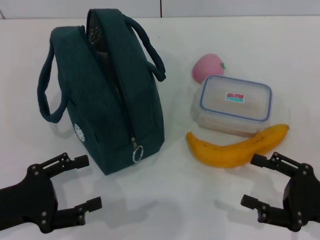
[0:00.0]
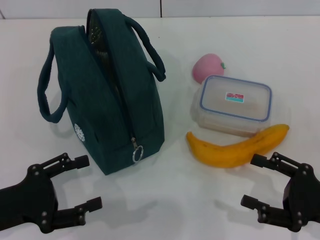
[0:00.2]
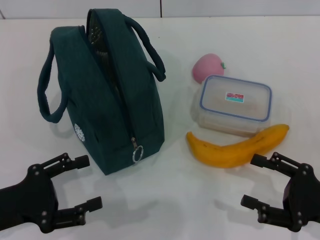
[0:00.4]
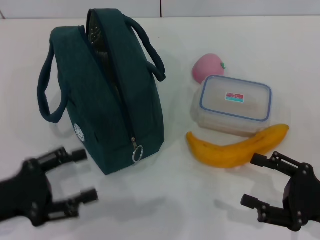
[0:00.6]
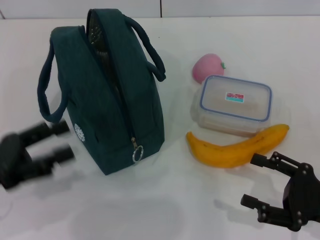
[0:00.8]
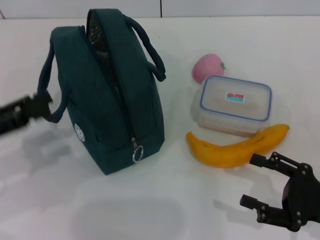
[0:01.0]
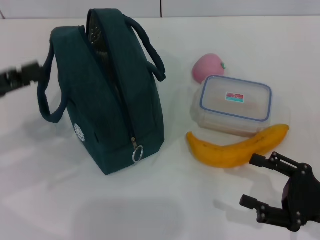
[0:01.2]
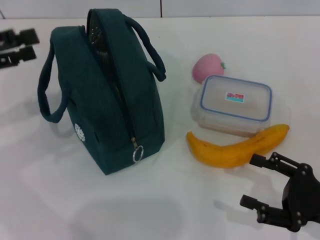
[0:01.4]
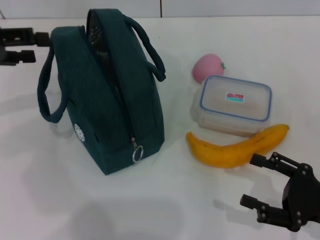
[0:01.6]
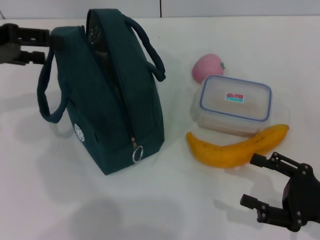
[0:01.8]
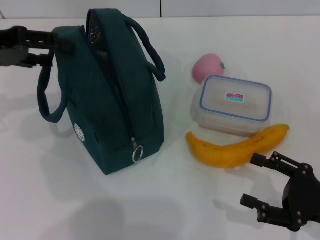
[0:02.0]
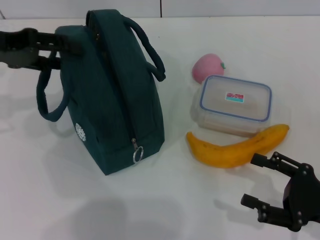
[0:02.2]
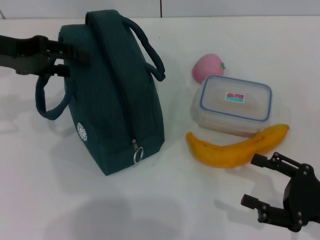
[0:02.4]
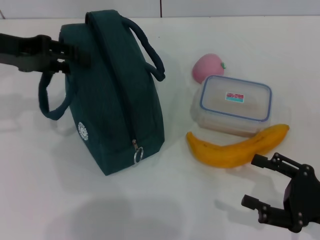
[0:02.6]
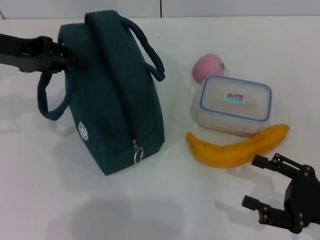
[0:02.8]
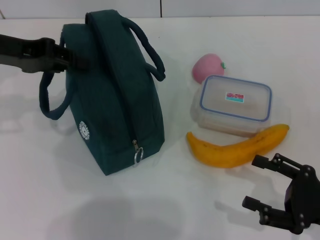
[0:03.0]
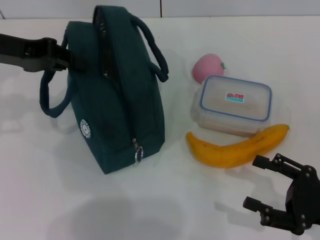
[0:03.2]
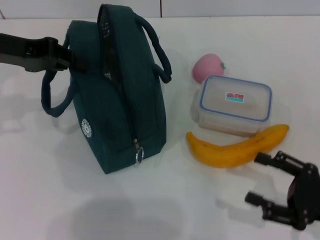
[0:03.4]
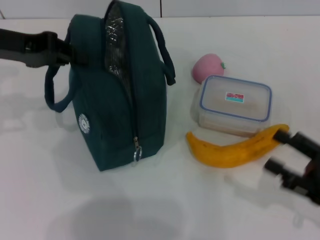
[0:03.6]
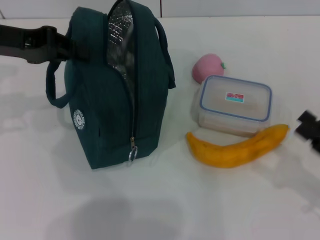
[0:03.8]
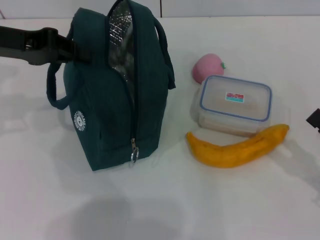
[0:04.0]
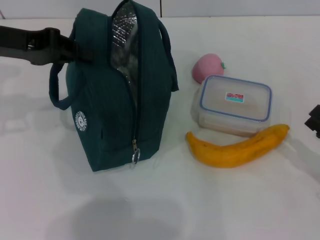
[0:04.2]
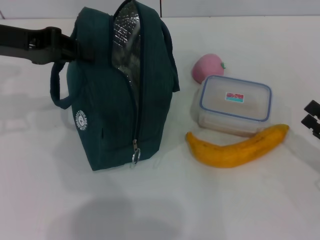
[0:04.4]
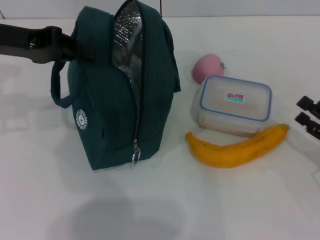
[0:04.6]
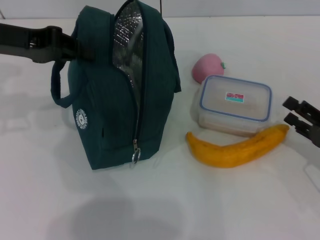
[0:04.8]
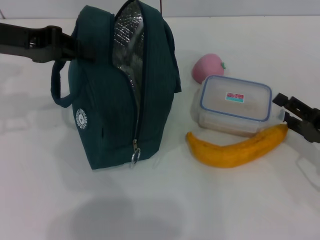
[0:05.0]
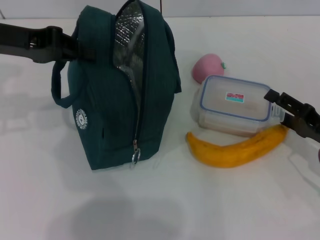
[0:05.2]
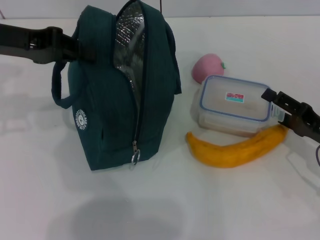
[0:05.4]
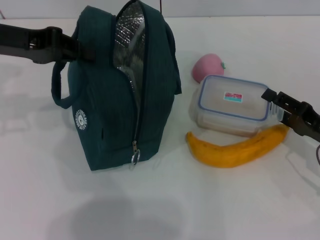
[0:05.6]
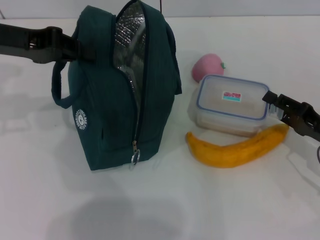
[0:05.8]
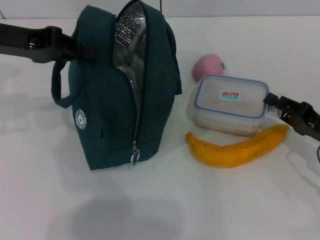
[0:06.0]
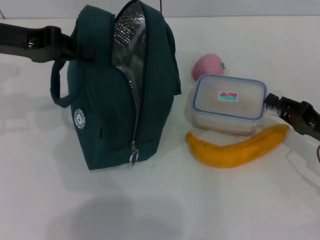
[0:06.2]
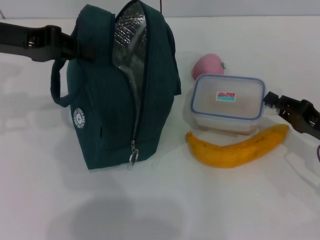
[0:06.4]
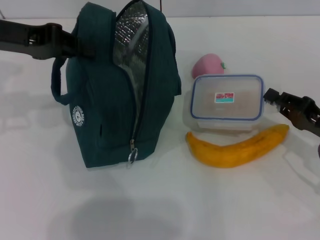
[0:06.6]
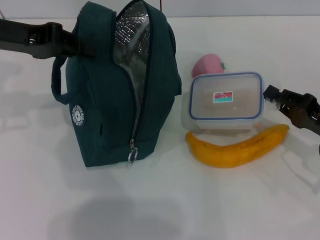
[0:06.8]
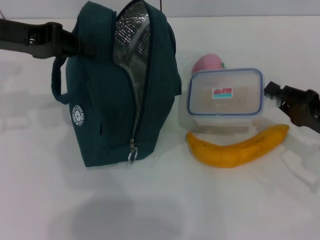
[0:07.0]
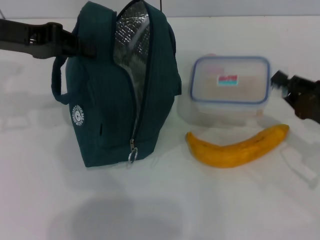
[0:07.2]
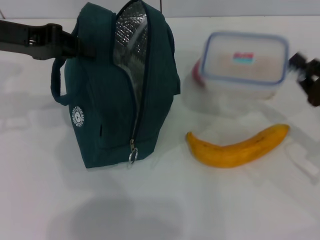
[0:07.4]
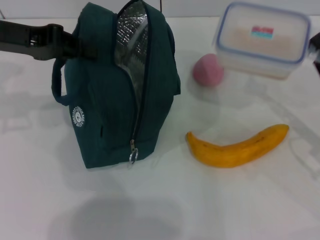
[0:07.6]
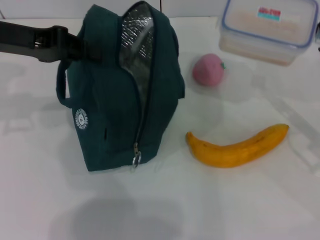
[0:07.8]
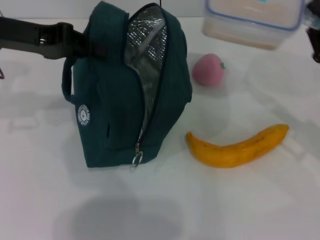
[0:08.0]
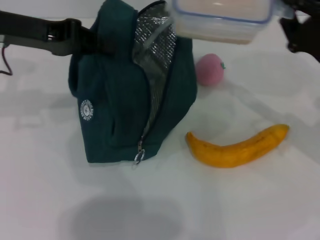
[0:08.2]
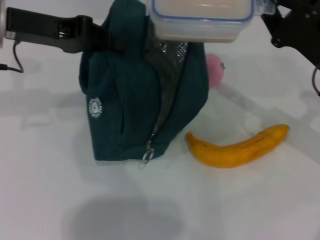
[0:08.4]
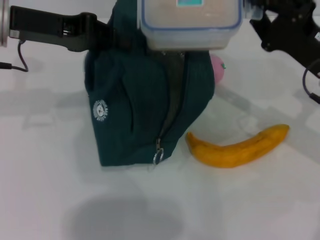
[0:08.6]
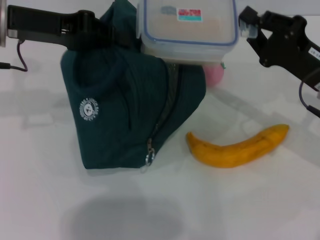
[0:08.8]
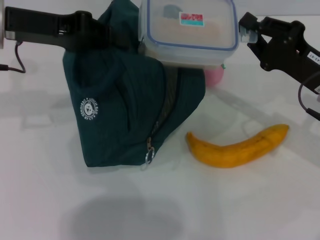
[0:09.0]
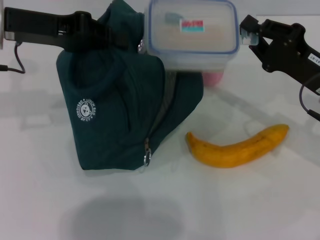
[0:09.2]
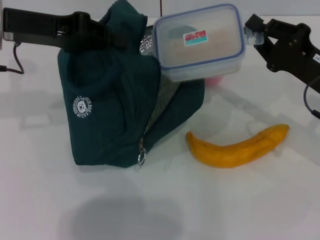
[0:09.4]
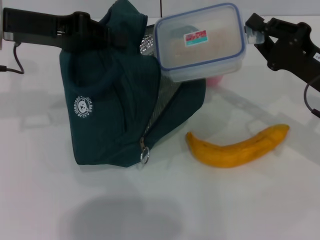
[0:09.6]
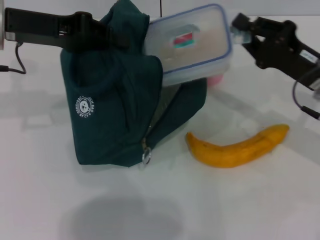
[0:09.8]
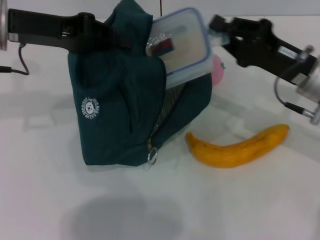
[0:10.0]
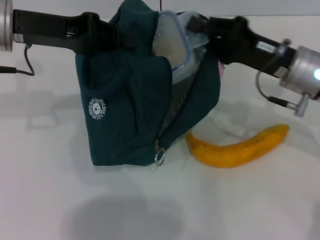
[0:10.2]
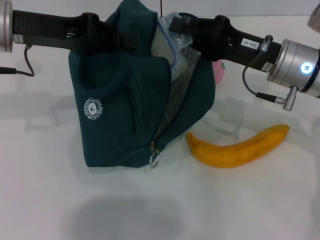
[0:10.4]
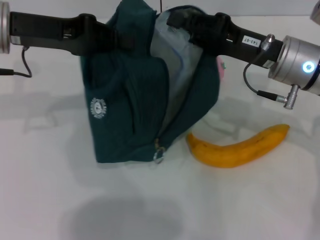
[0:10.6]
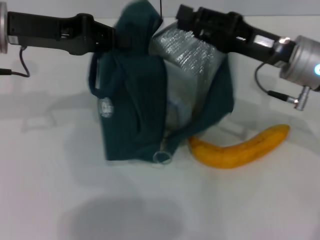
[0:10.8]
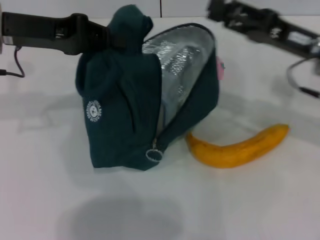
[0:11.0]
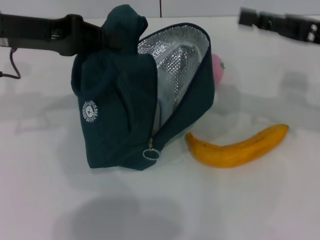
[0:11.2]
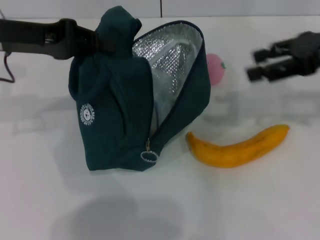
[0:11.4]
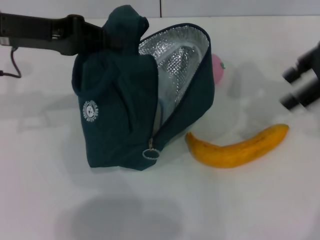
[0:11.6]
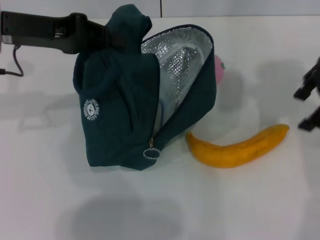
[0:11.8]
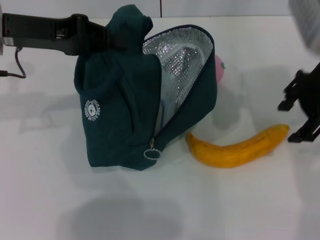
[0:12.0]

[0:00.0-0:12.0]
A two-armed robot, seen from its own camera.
Step, 0:00.0 to 0:03.4: Hold the lunch bag with your left hand.
Step, 0:03.6 to 0:06.4: Pick up the lunch box with your right hand.
Step, 0:06.6 to 0:10.8: Place the lunch box into the lunch bag with your right hand.
0:00.0 to 0:01.6: The left gripper is displaced forward and upward by about 20 cm.
0:01.6 to 0:03.0: The left gripper moves to the right, approximately 5 cm, and closes up.
0:03.0 to 0:04.4: The right gripper shifts by roughly 5 cm; the left gripper closes up.
0:04.4 to 0:06.0: The right gripper travels forward by about 5 cm.
0:06.0 to 0:07.6: The right gripper closes.
0:07.6 to 0:09.0: The right gripper heads to the left, covering some 5 cm.
0:09.0 to 0:10.4: The right gripper is displaced to the left by about 5 cm.
0:10.4 to 0:12.0: The right gripper goes about 10 cm upward, and opens up.

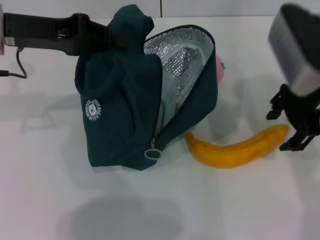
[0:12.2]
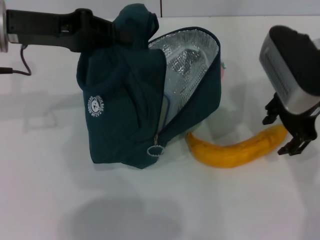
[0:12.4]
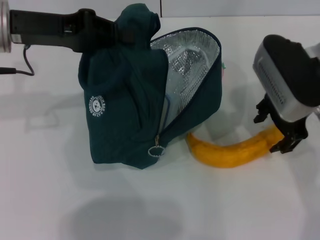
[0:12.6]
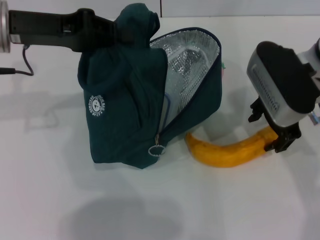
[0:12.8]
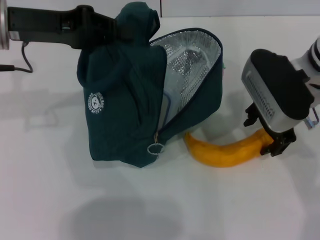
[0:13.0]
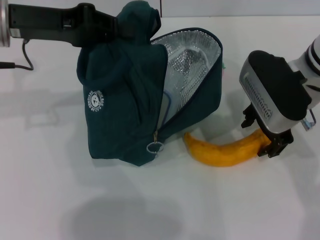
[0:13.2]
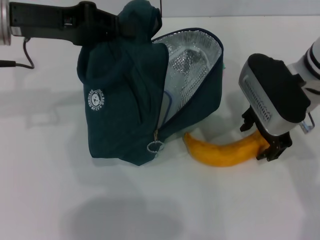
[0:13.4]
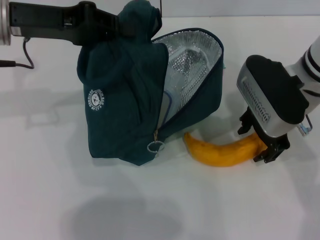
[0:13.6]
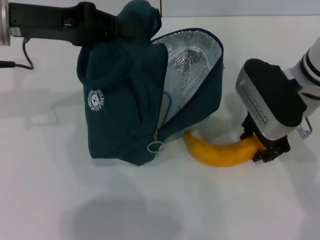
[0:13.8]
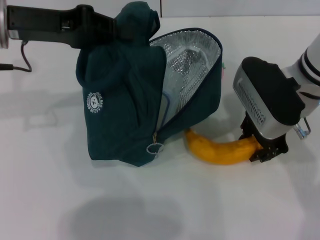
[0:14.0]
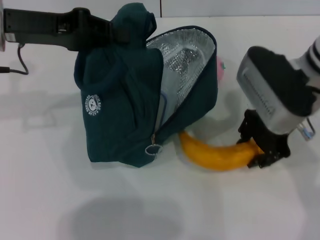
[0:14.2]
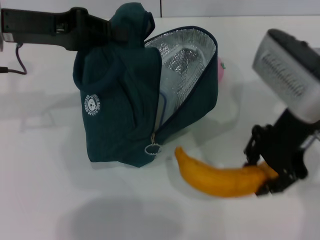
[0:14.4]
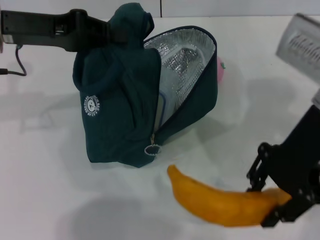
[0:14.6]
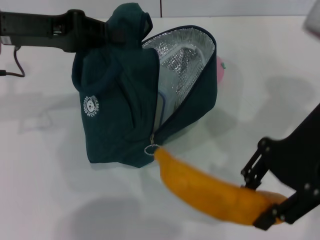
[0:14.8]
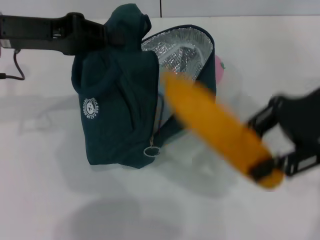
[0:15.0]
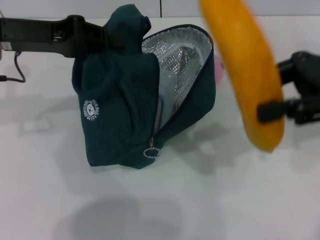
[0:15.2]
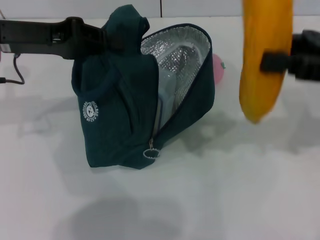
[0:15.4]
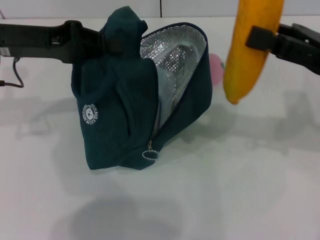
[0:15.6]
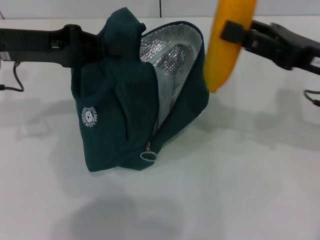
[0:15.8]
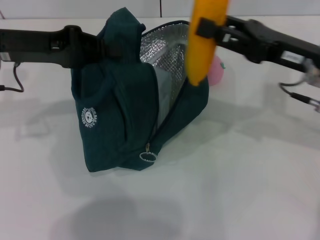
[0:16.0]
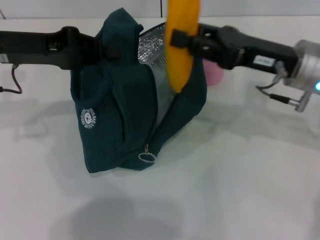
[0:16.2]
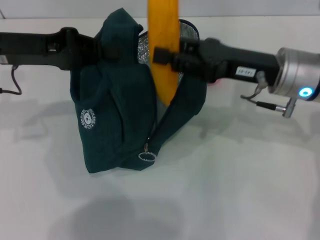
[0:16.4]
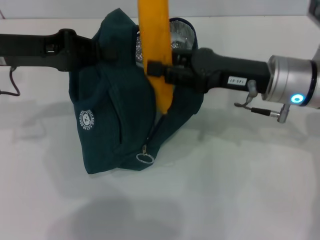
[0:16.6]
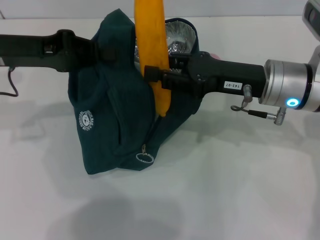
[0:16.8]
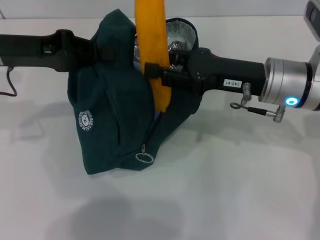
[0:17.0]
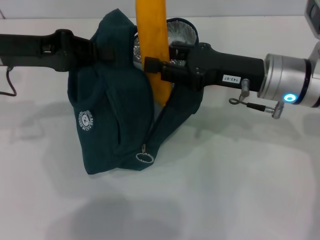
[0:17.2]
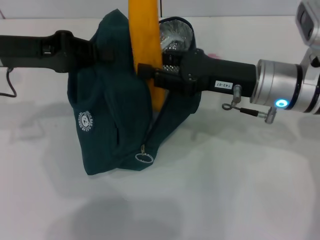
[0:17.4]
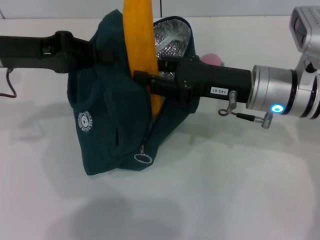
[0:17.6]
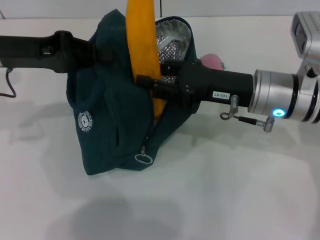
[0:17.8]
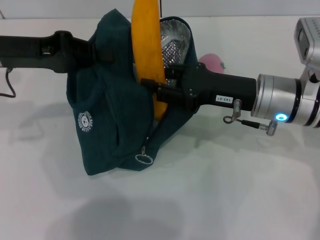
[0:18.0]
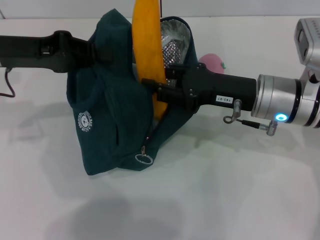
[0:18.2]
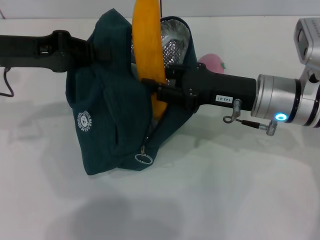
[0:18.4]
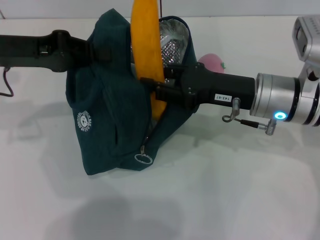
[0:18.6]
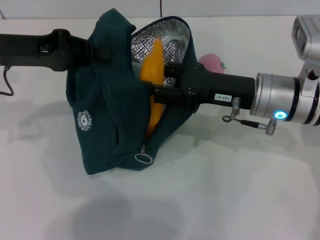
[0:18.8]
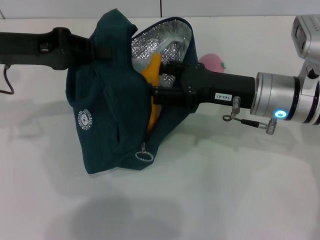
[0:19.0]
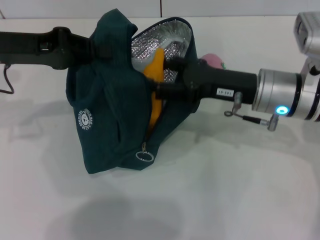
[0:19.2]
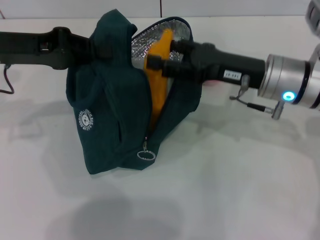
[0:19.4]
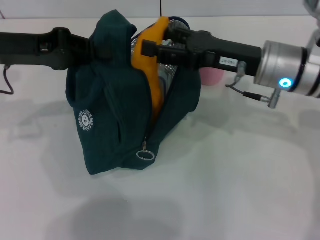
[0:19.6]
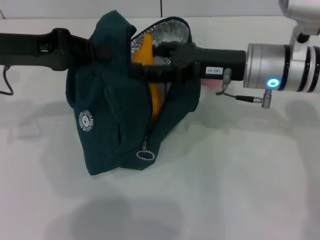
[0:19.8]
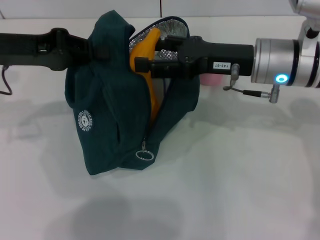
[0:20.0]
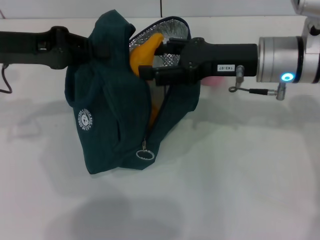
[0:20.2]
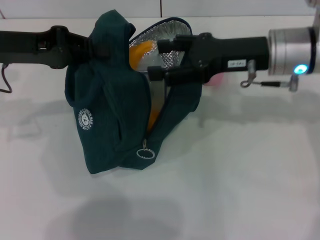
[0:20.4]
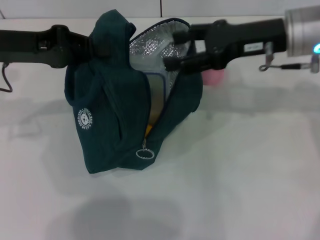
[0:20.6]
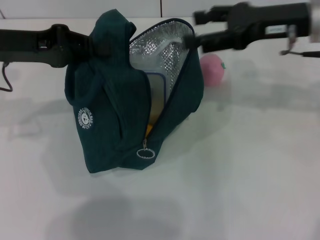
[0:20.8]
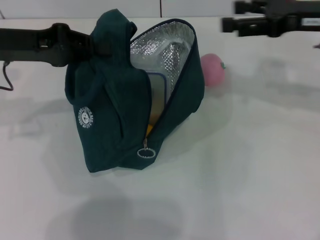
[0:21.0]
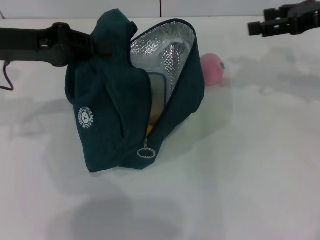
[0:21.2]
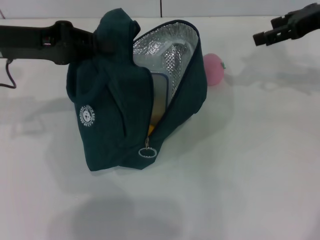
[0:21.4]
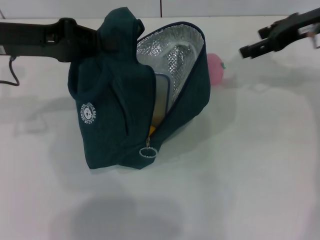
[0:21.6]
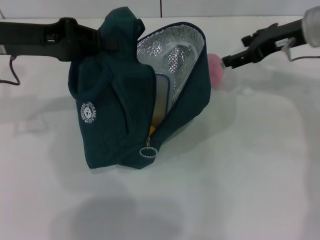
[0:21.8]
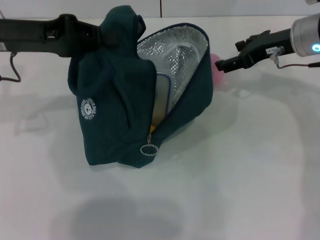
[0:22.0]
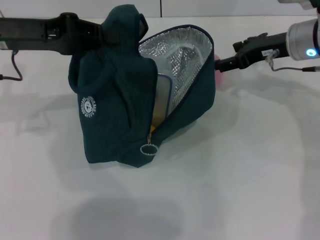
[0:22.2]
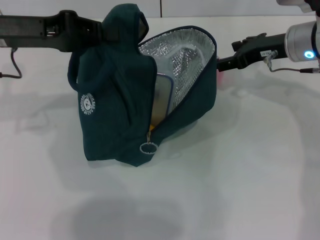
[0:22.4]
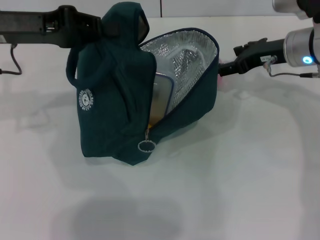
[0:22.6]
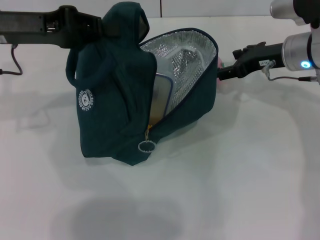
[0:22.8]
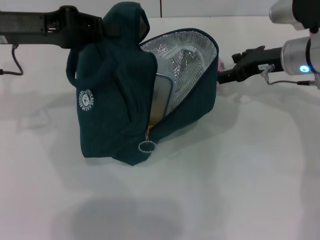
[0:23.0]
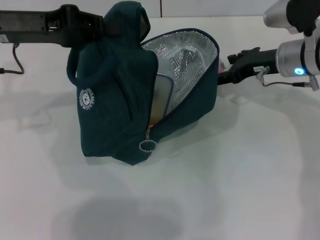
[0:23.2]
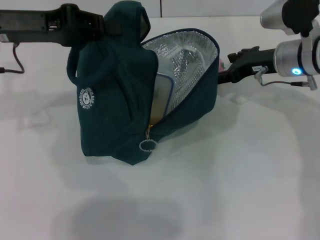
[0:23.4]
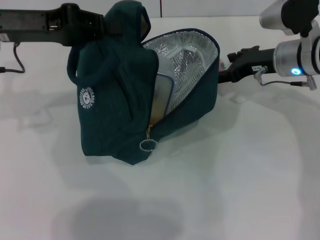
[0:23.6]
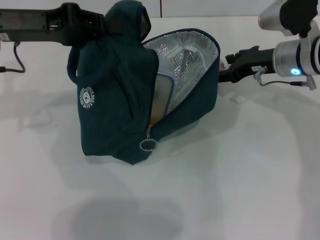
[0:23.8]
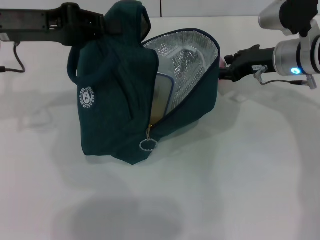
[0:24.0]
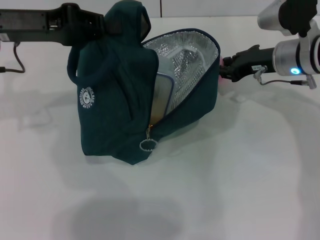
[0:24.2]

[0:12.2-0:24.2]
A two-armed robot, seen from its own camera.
Step, 0:12.2 to 0:13.8: Take the banana with your right hand.
Step, 0:14.0 to 0:20.4: Put the banana into the lunch bag with your right hand.
0:12.2 to 0:13.8: The right gripper is displaced downward by about 5 cm.
0:13.8 to 0:15.2: The right gripper heads to the right and upward, covering some 15 cm.
0:15.2 to 0:16.6: The right gripper moves downward and to the left, some 15 cm.
0:16.6 to 0:18.2: There are only small adjustments of the grippers.
0:18.2 to 0:19.8: The right gripper opens up.
0:19.8 to 0:21.2: The right gripper moves to the right and upward, some 15 cm.
0:21.2 to 0:22.6: The right gripper is displaced downward and to the left by about 10 cm.
0:22.6 to 0:24.2: The right gripper closes its fingers.
